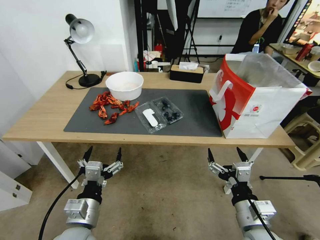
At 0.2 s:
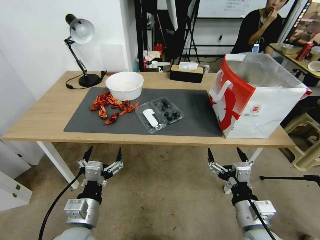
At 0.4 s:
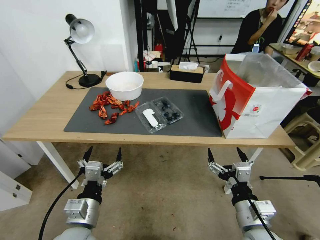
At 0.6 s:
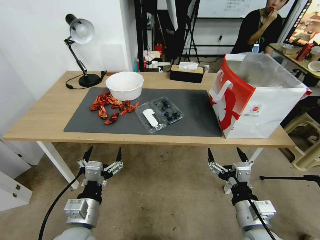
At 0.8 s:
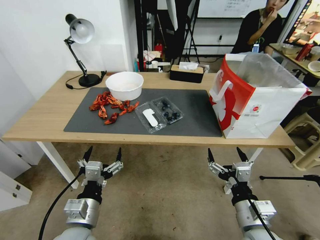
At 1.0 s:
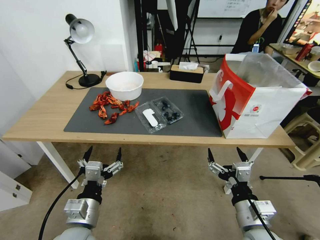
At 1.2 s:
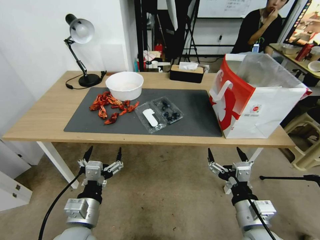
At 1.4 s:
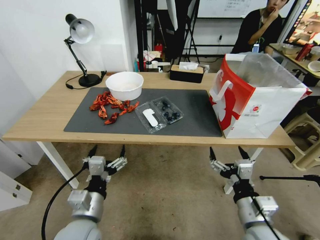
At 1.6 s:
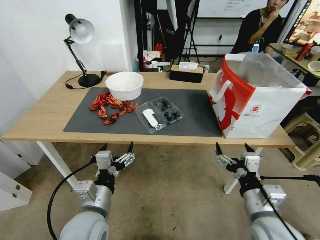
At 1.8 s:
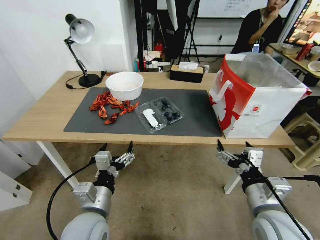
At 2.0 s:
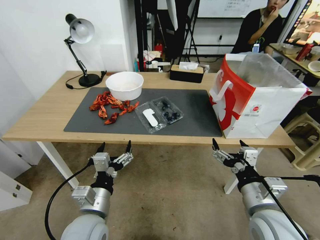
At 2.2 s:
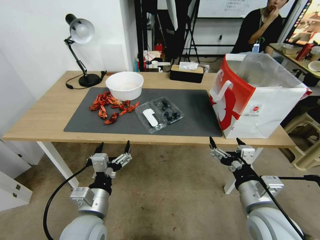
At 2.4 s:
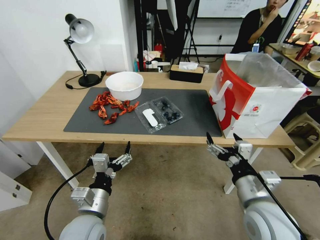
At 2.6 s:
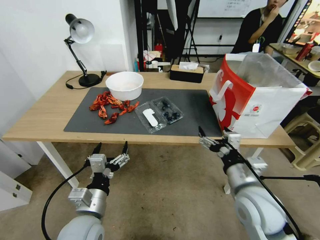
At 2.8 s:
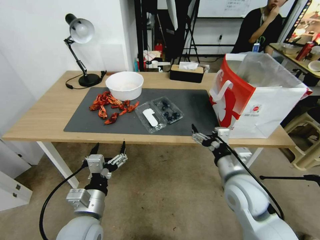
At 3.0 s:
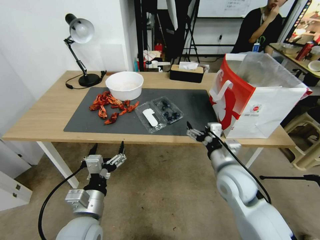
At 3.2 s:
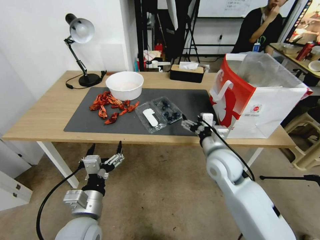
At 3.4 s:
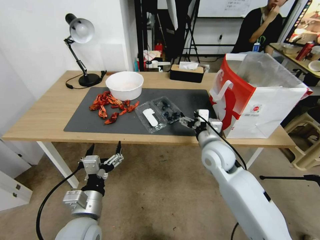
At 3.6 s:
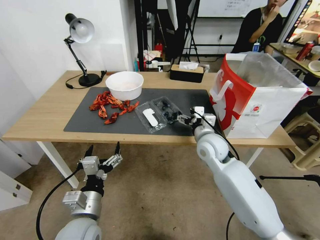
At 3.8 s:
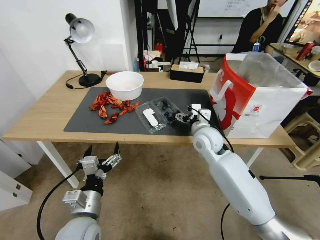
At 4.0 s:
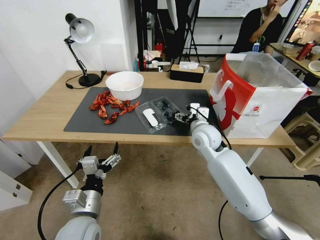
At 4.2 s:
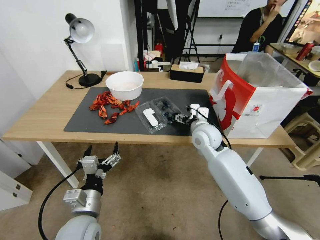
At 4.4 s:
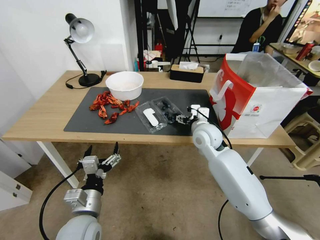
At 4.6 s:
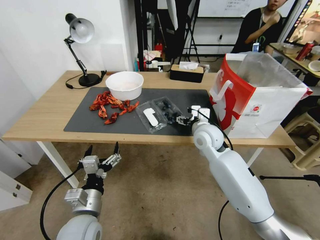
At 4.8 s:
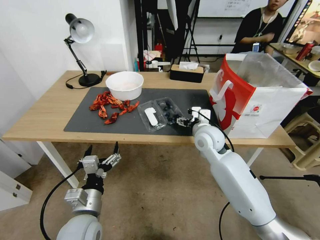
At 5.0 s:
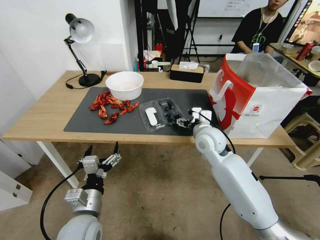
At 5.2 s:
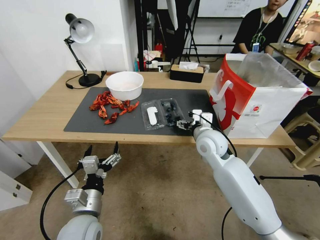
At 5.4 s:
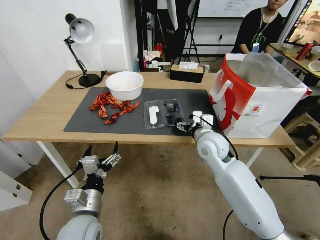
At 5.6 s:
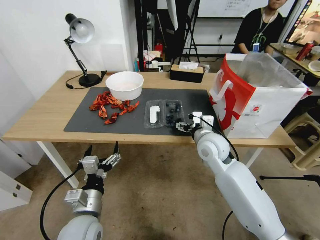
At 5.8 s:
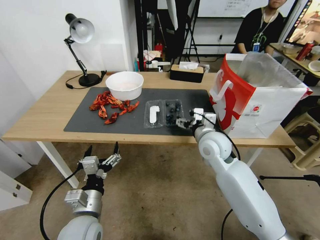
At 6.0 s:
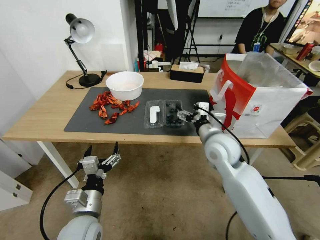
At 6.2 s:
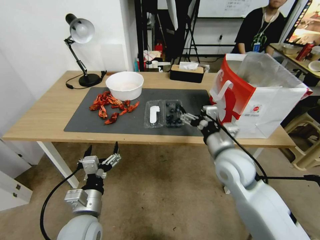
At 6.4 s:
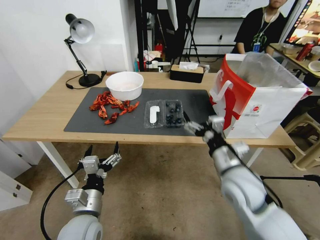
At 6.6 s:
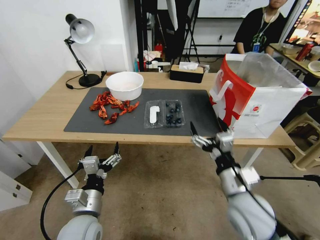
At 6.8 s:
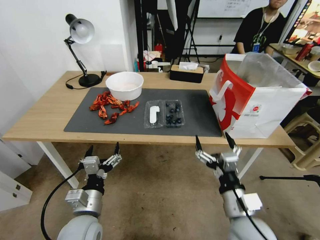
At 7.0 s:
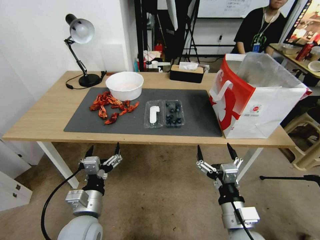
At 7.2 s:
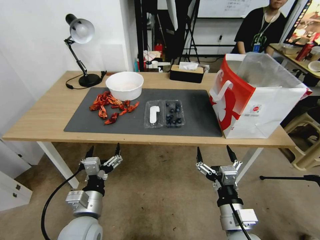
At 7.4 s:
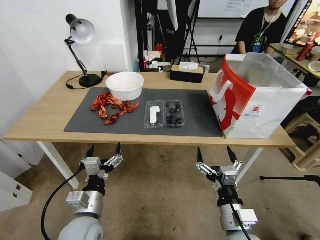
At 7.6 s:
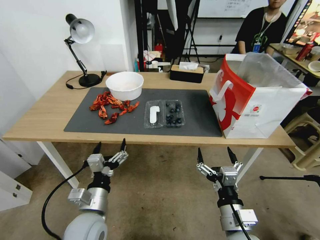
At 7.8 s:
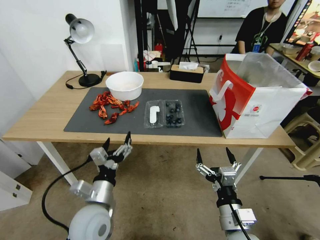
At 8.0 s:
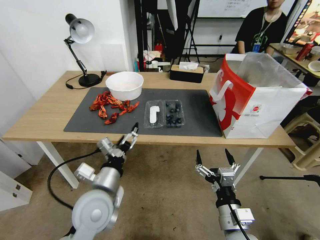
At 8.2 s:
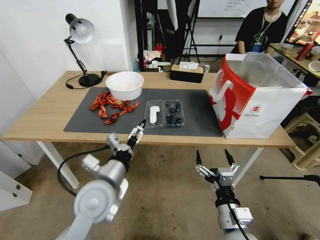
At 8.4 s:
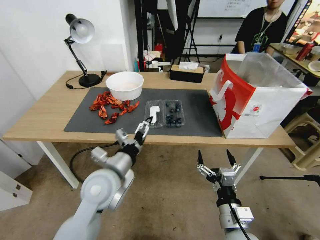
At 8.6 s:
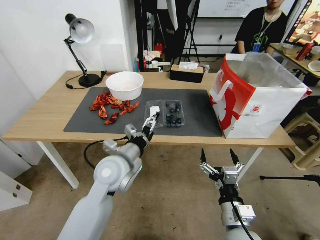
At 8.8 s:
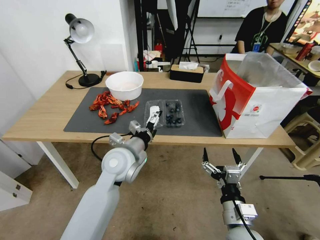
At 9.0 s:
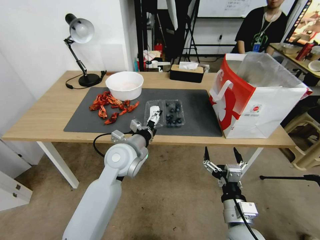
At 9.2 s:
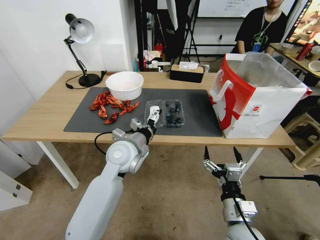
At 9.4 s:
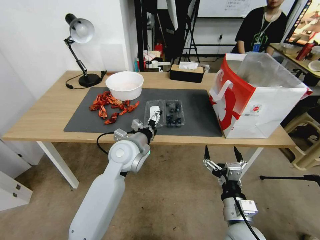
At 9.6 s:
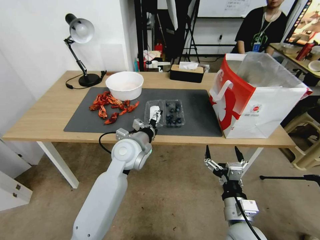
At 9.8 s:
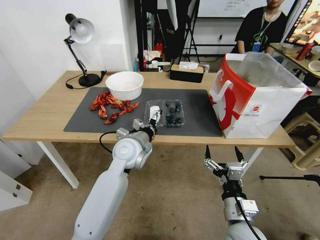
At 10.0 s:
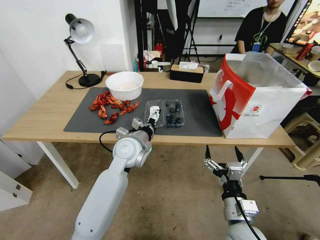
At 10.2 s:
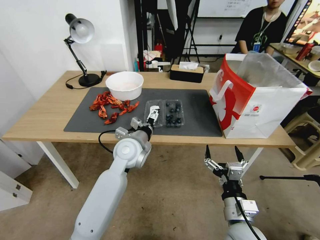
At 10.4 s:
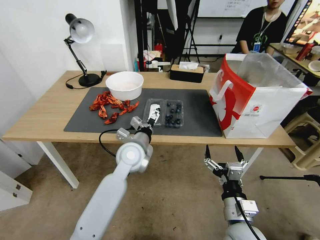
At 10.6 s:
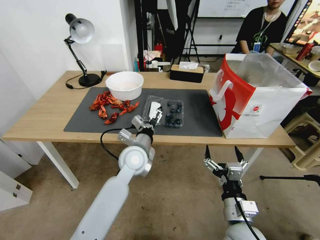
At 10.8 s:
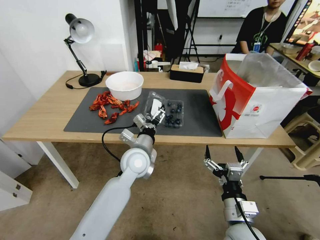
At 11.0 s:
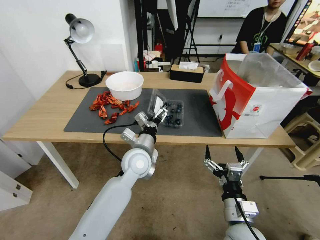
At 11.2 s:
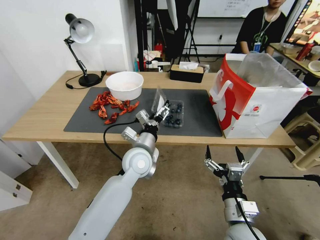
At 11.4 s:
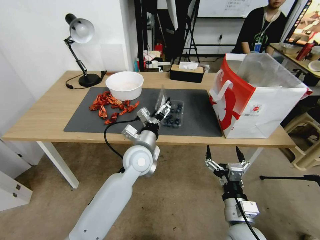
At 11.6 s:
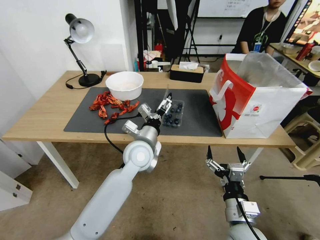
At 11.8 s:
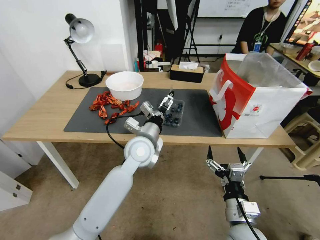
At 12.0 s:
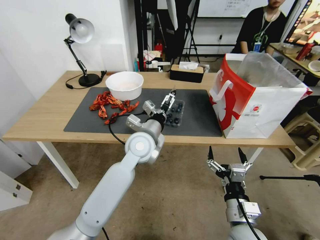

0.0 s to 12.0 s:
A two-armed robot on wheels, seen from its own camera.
Task of the whole recording: Close the takeout container lid, then place the container into the takeout bag.
1.6 to 3.0 s: The right gripper is displaced forward by about 10 cm.
3.0 to 4.4 s: The right gripper travels forward by some 15 cm.
4.4 to 6.0 s: The right gripper shifts about 5 cm backward.
6.0 to 7.6 s: The right gripper heads backward and downward, covering roughly 25 cm.
7.6 to 9.0 s: The left gripper is displaced forward, upward and to the right by roughly 20 cm.
9.0 to 10.4 s: The grippers move only a little.
10.4 to 12.0 s: The left gripper changes place by about 5 cm.

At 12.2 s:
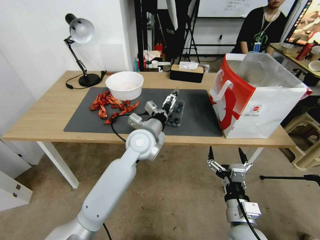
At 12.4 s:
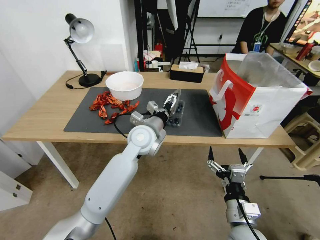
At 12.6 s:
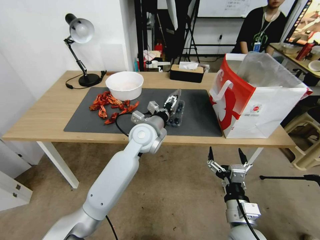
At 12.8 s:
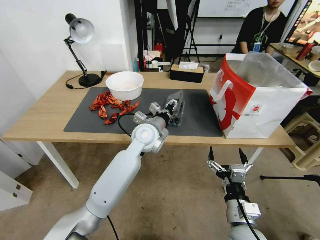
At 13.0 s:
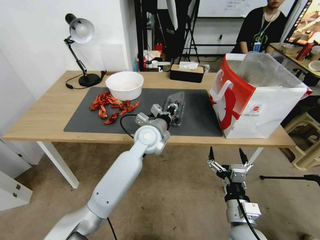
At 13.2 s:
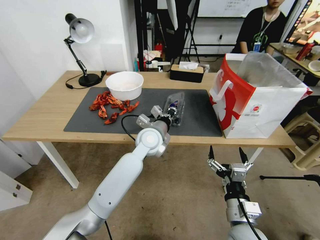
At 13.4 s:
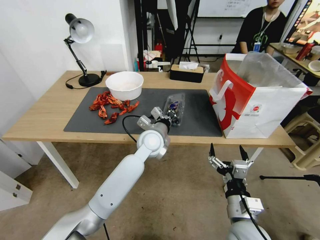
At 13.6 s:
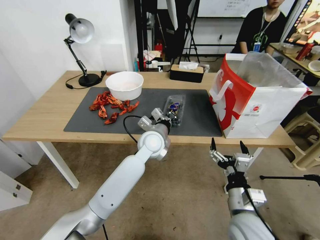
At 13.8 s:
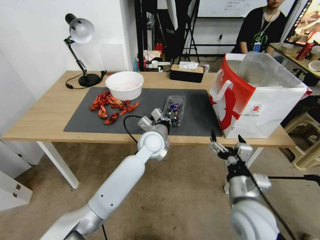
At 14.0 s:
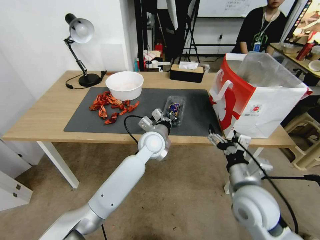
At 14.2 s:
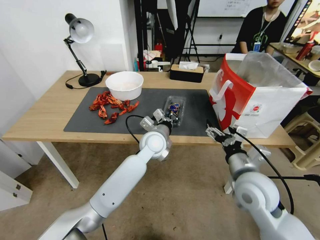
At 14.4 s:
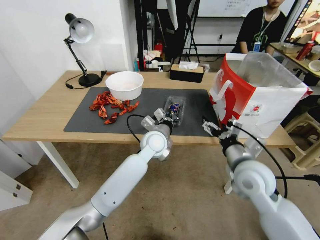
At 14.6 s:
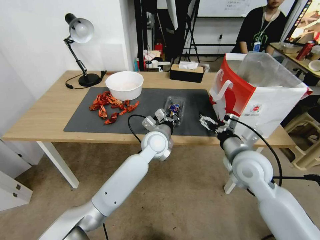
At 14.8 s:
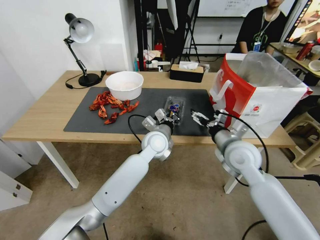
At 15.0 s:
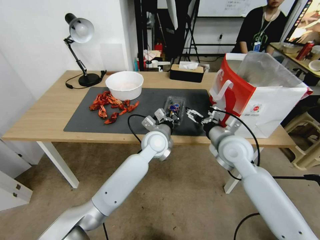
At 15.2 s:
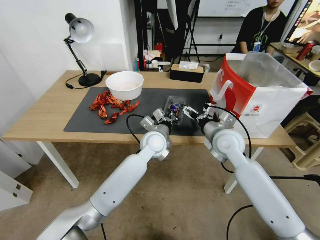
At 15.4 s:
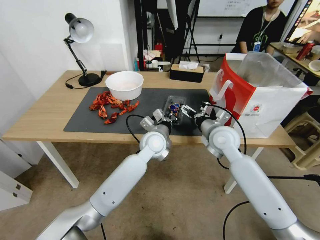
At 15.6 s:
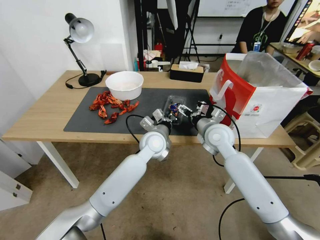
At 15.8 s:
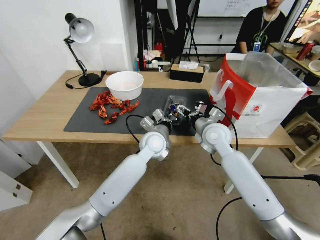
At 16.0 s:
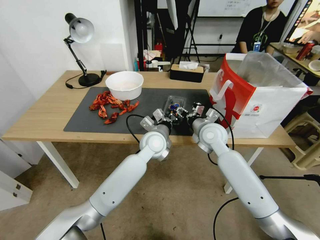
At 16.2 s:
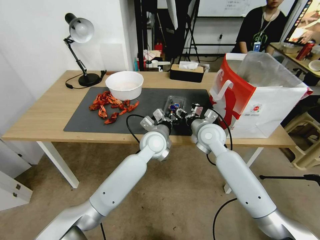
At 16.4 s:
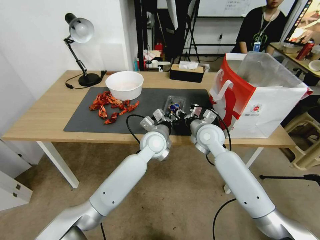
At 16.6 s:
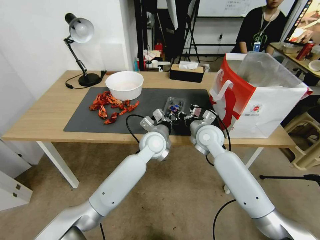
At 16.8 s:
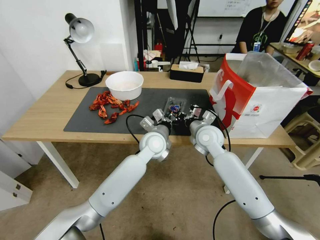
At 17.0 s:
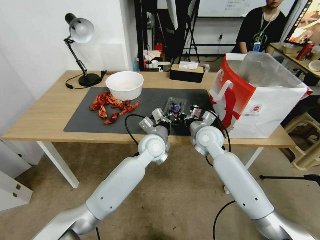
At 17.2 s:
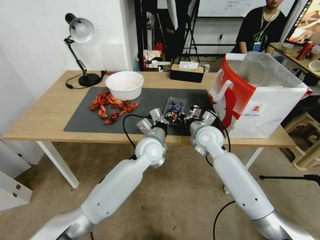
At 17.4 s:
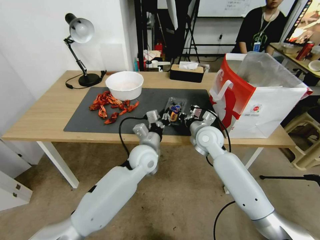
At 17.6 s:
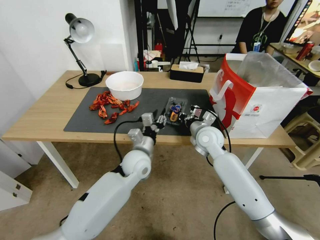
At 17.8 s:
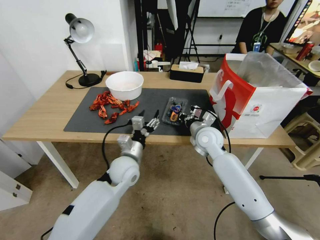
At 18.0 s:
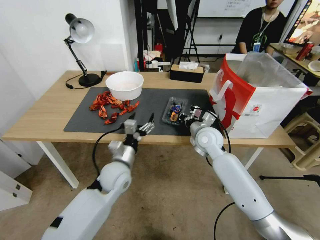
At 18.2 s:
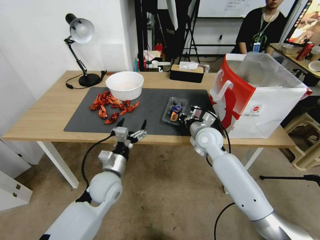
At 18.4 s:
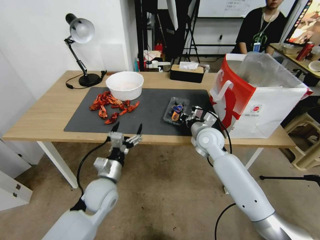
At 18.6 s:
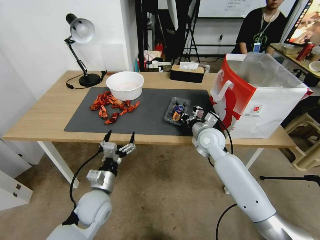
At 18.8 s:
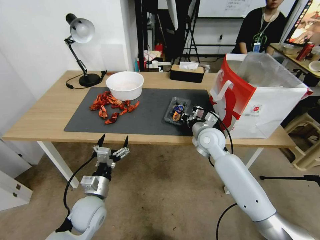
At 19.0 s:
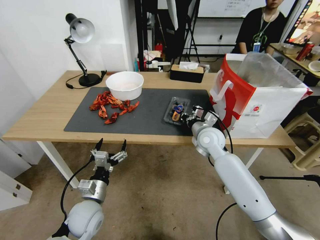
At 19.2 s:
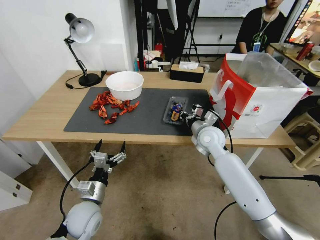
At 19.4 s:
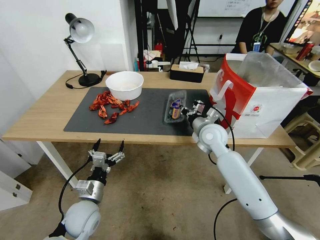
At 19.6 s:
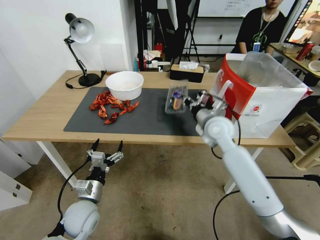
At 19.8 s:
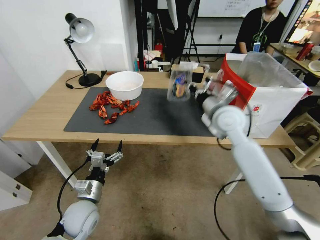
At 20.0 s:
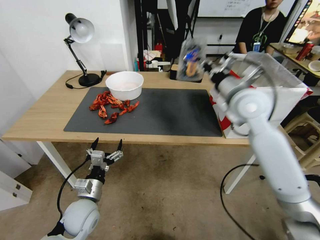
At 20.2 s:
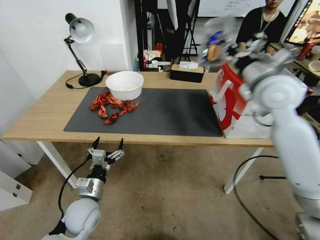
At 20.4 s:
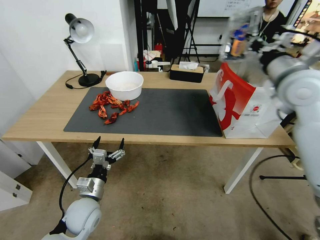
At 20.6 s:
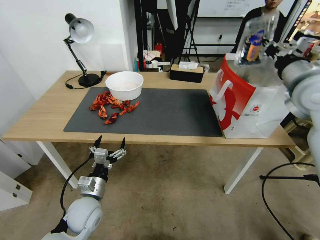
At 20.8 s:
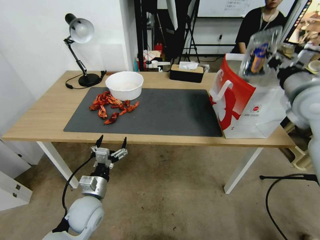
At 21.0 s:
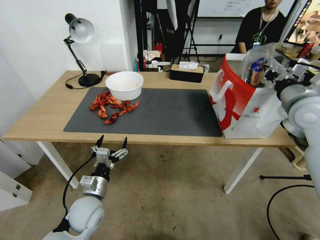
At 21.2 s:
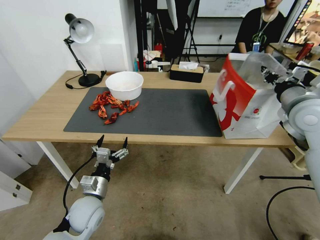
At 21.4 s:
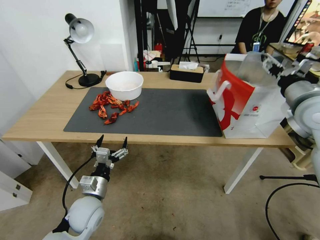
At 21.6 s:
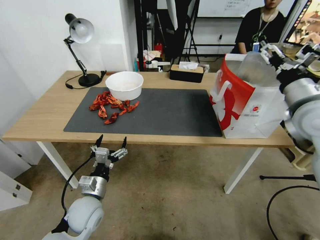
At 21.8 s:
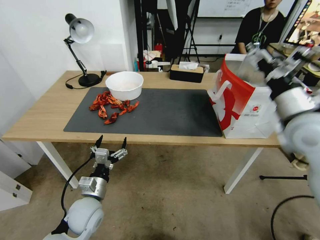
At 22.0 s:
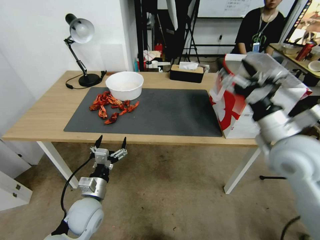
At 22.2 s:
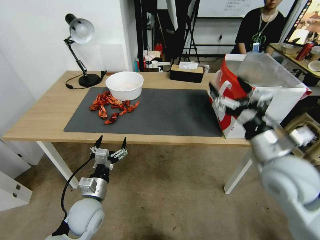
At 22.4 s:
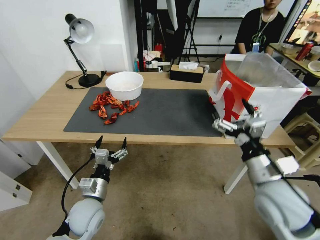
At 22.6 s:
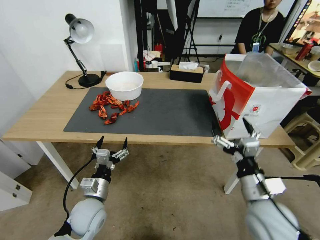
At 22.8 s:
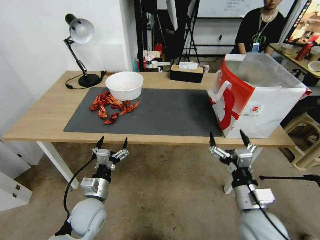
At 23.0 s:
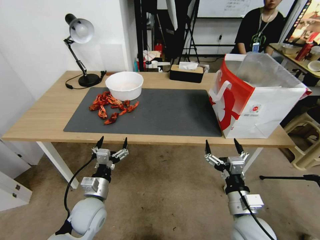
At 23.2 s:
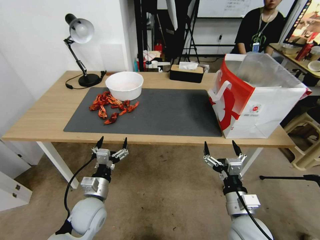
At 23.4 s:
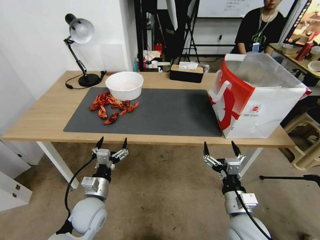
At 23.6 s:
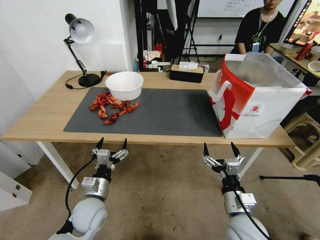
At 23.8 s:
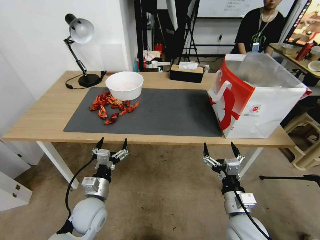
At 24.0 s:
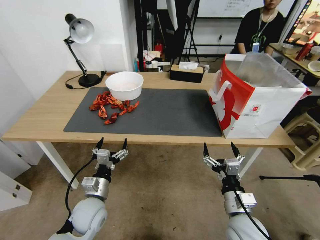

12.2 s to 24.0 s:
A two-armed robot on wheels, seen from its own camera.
Task of the whole recording: Close the takeout container lid, then place the container into the takeout bag.
12.2 to 13.6 s: The left gripper ends up some 5 cm from where it was, and closes up.
13.6 to 15.2 s: The right gripper is displaced forward by about 20 cm.
15.2 to 16.6 s: The right gripper travels forward by about 5 cm, and closes.
16.6 to 18.2 s: The left gripper shifts roughly 20 cm to the left and backward, and opens.
18.2 to 19.6 s: The left gripper goes some 10 cm backward, to the left and downward. The right gripper goes roughly 5 cm upward.
19.6 to 21.0 s: The right gripper moves to the right and upward, some 20 cm.
21.0 to 22.6 s: The right gripper heads backward, downward and to the left, covering roughly 25 cm, and opens its fingers.
22.6 to 24.0 s: The right gripper travels downward by about 10 cm.
